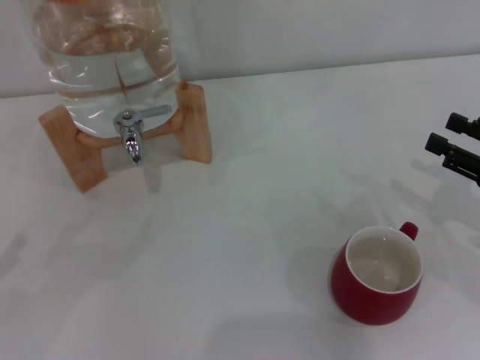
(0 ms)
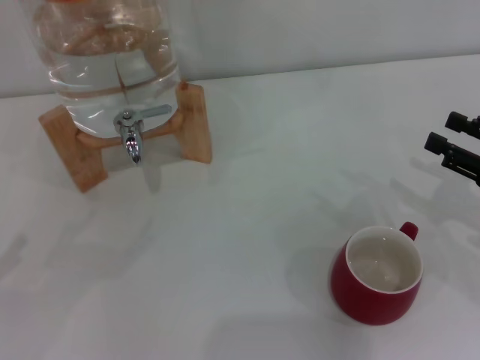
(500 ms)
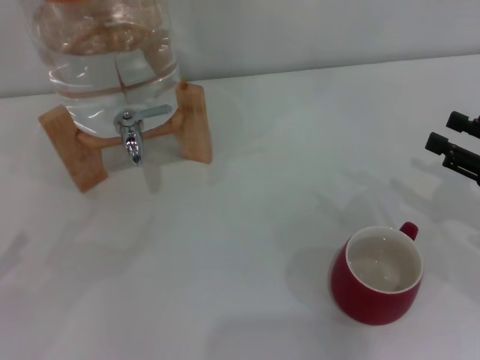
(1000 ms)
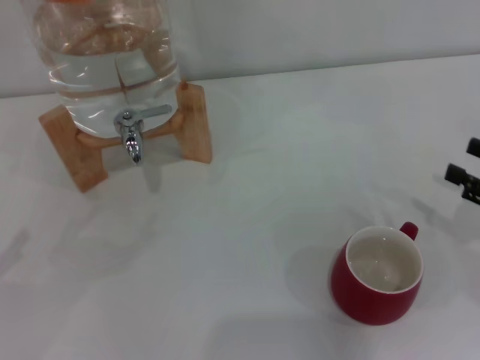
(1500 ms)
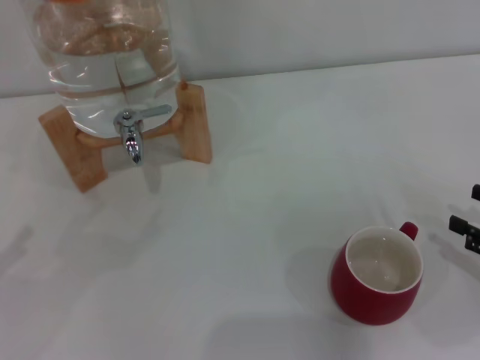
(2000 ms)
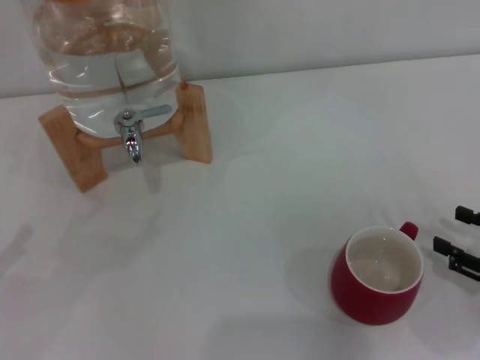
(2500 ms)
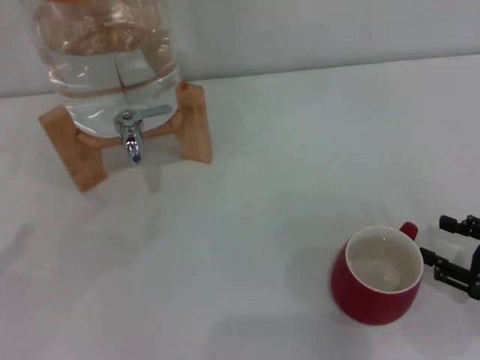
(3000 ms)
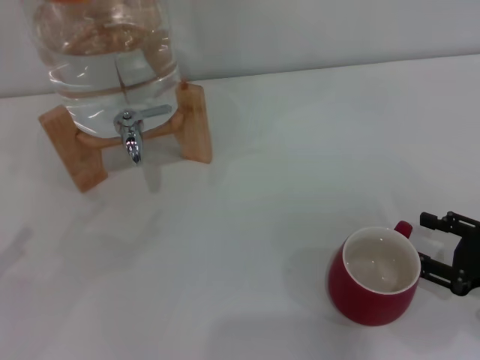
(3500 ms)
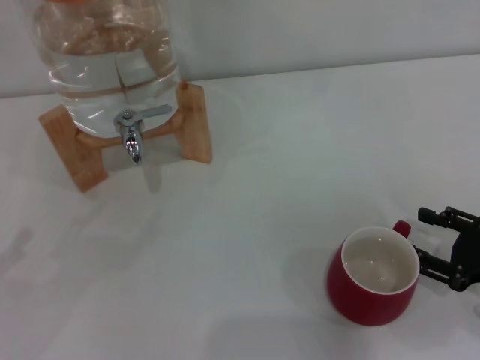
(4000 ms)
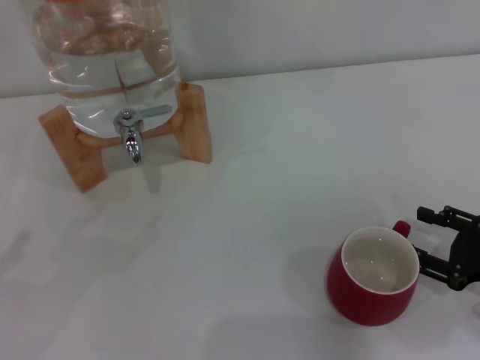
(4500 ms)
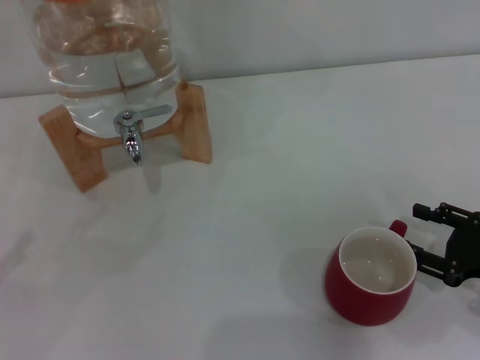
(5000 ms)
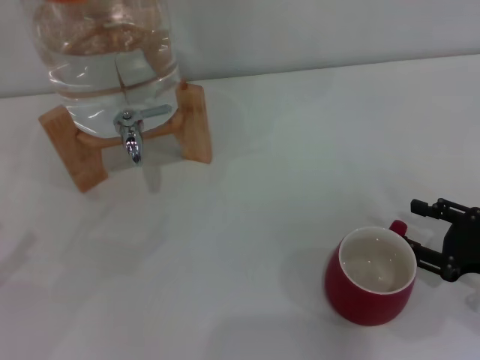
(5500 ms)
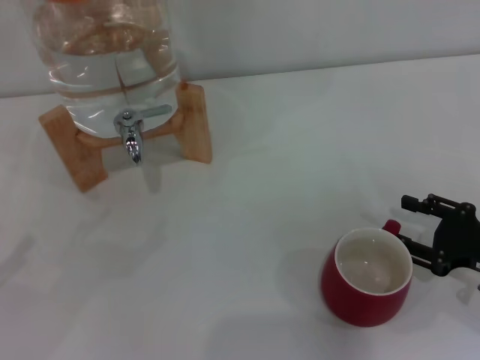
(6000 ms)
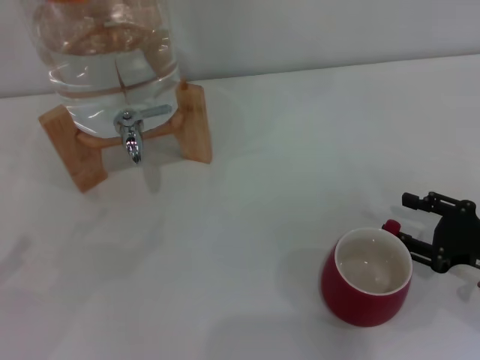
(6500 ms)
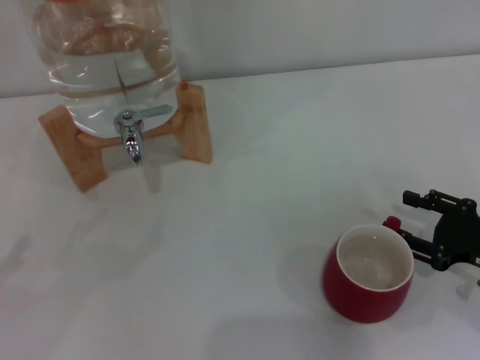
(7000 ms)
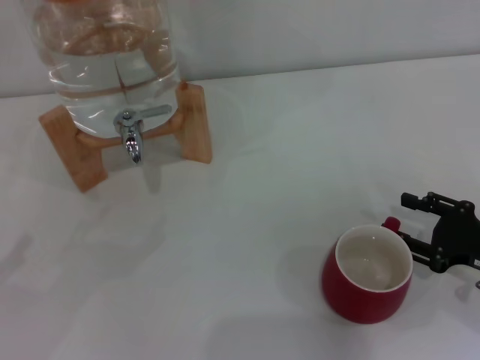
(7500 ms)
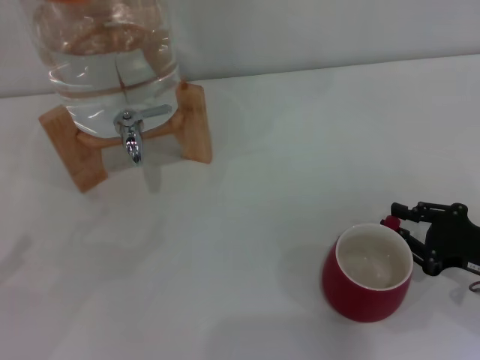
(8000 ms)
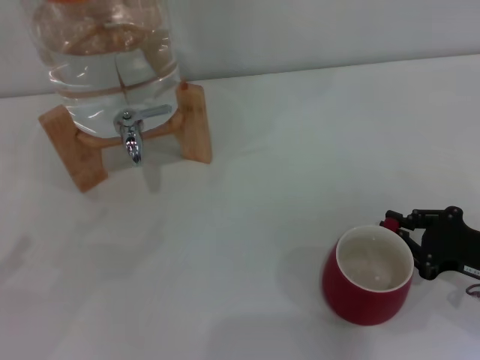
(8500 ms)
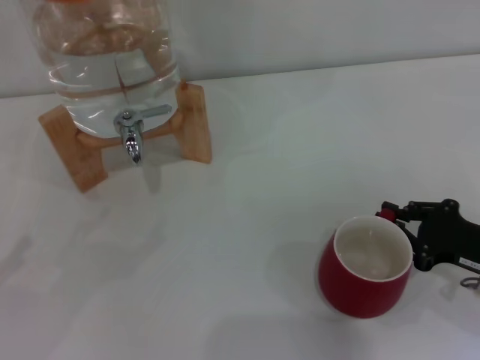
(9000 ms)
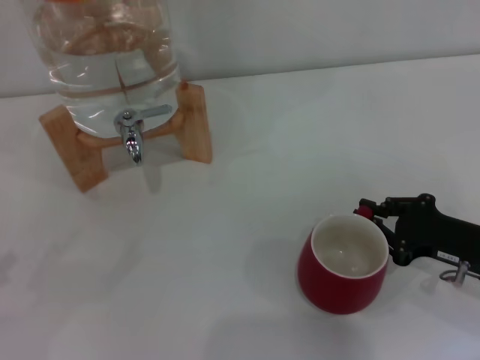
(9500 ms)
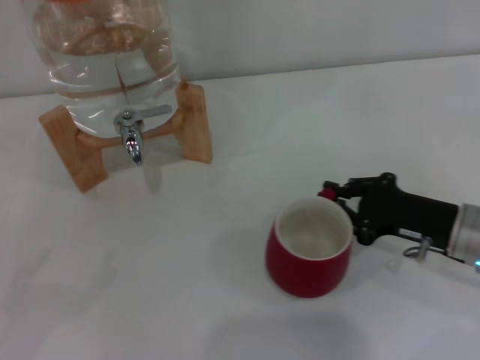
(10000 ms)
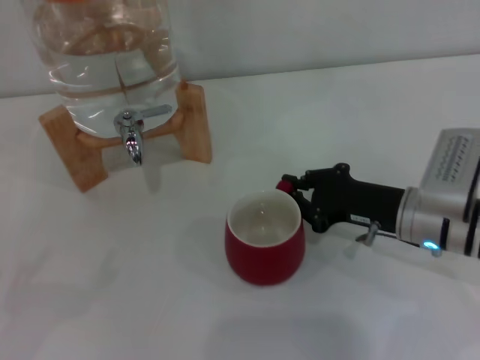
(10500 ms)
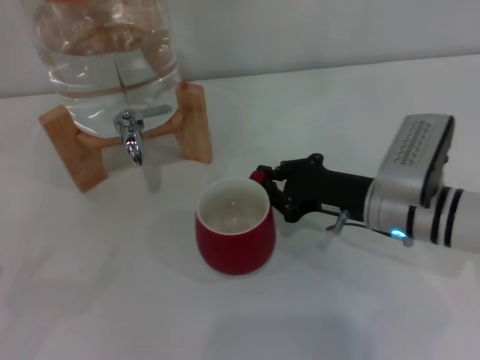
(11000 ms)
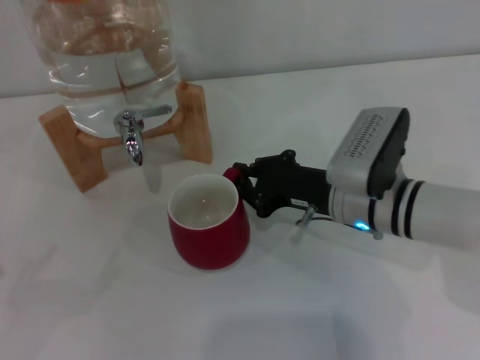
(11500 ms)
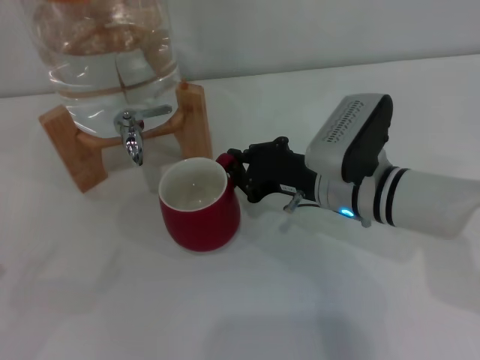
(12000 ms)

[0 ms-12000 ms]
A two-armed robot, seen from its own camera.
Task of the whole recording: the right gripper pick up the red cup and place it horizontally under the faucet, the left gripper turn on the faucet to fill the cup, and then turn off the faucet.
0 ms to 2000 ms: The right gripper travels backward by some 5 cm.
2000 ms to 4000 ms: There are only small adjustments of the grippers.
4000 ms to 6000 ms: The grippers make only small movements.
6000 ms to 8000 ms: The two grippers keep their place.
8000 ms to 10000 ms: The right gripper is displaced to the left and forward by roughly 5 cm, and closes its fingers.
10000 ms to 12000 ms: The right gripper is displaced to the left and forward by about 15 cm.

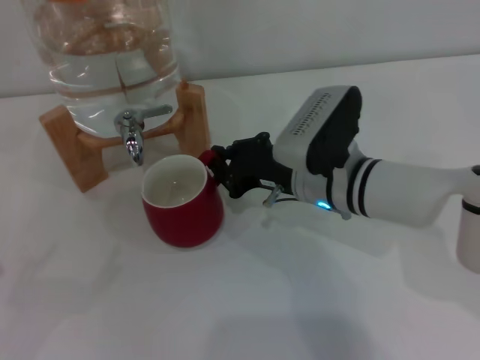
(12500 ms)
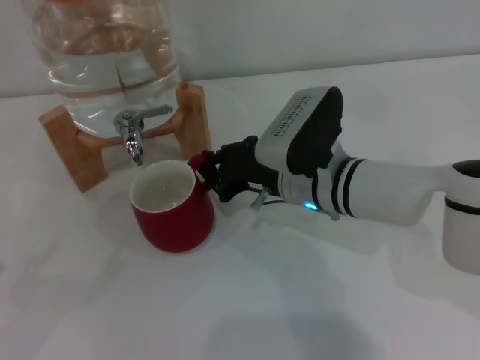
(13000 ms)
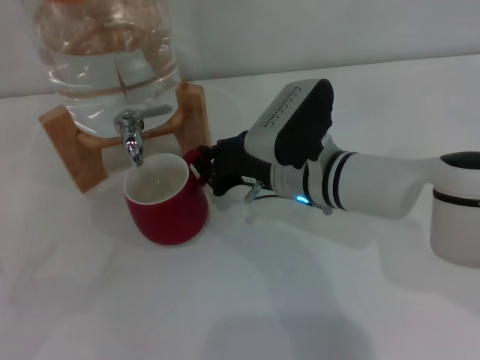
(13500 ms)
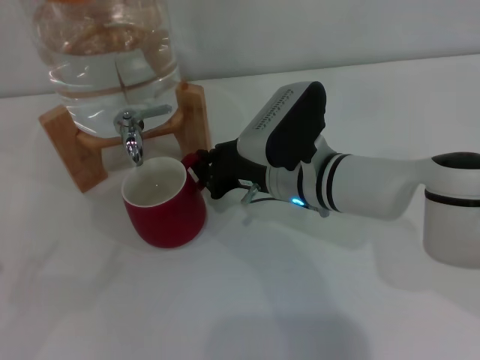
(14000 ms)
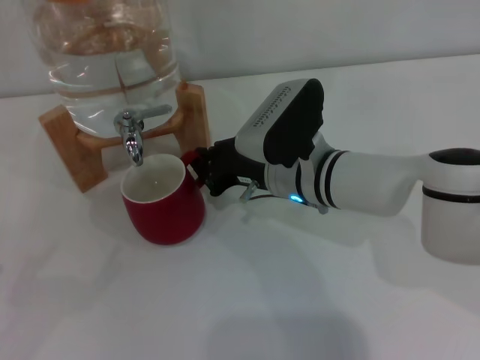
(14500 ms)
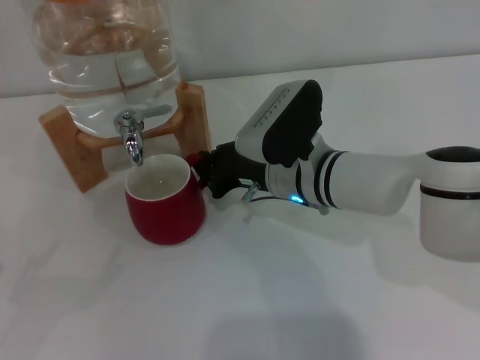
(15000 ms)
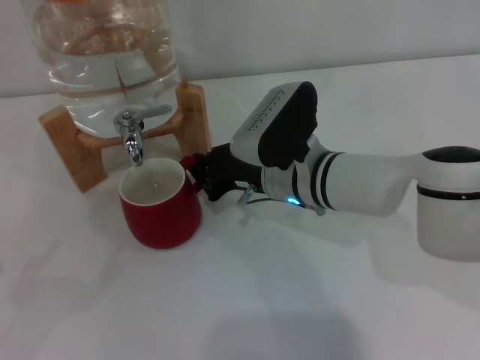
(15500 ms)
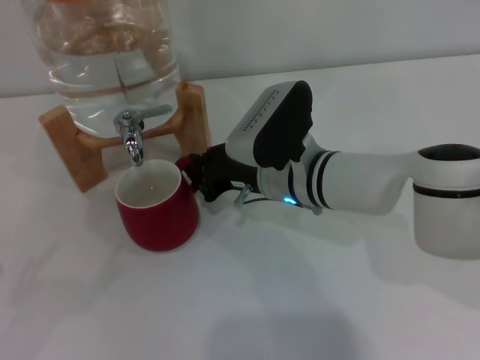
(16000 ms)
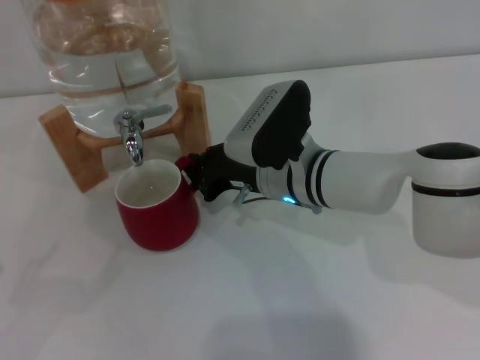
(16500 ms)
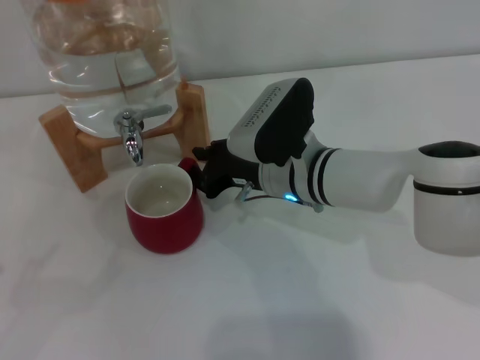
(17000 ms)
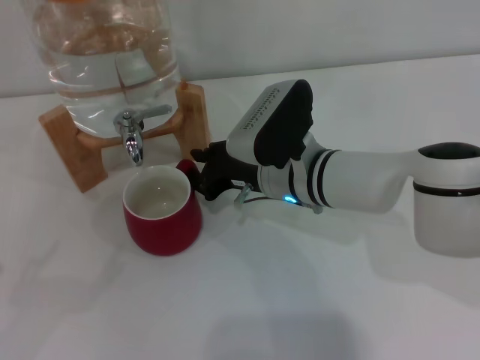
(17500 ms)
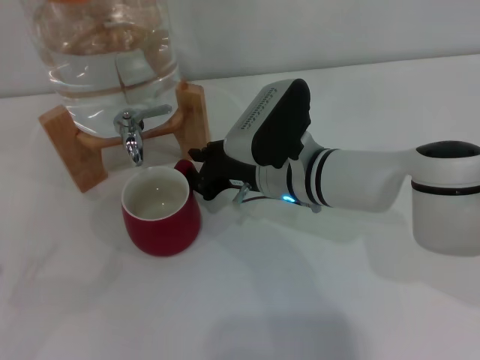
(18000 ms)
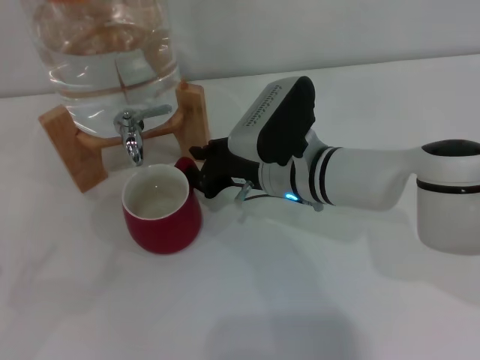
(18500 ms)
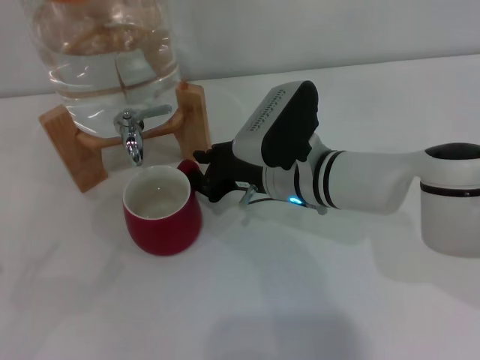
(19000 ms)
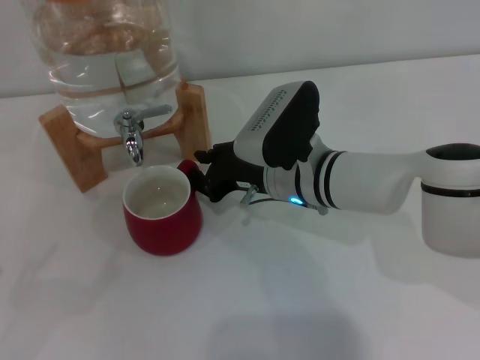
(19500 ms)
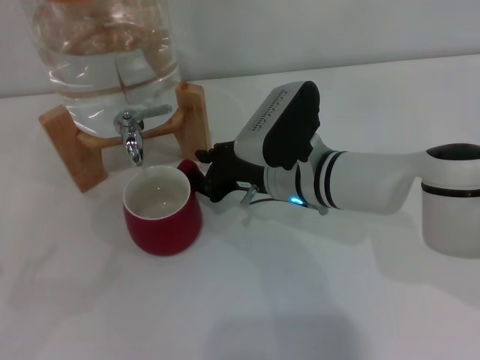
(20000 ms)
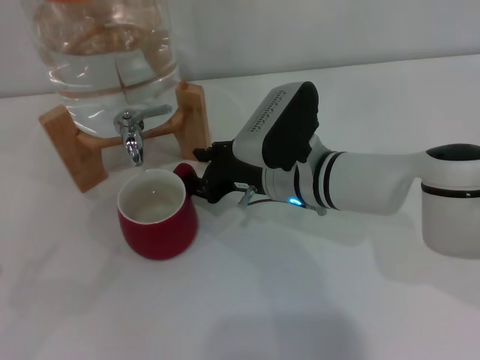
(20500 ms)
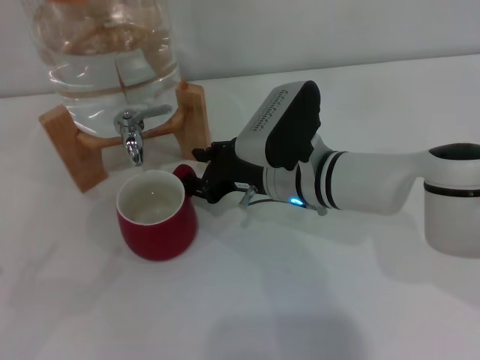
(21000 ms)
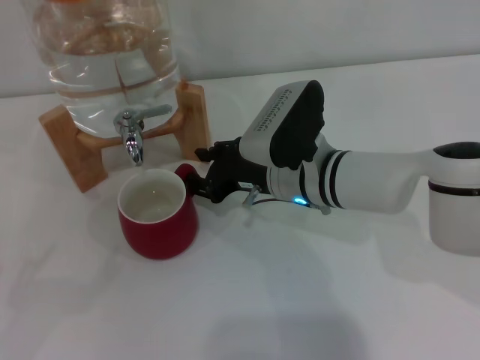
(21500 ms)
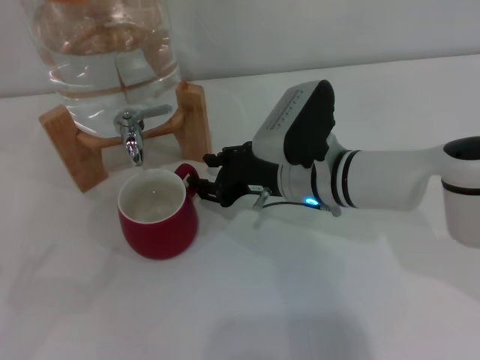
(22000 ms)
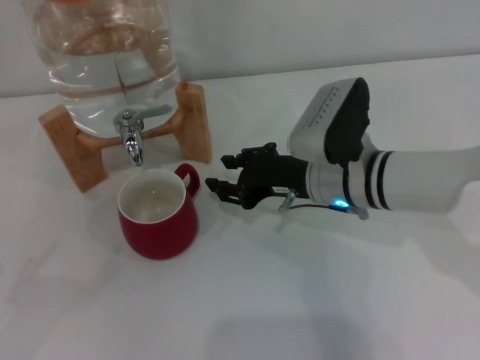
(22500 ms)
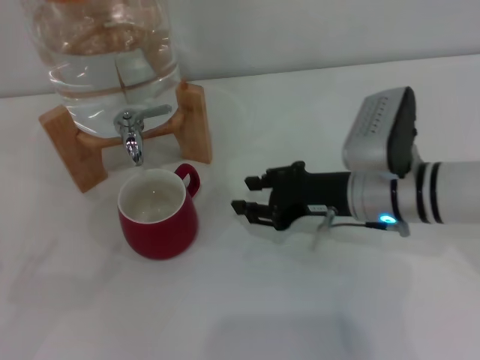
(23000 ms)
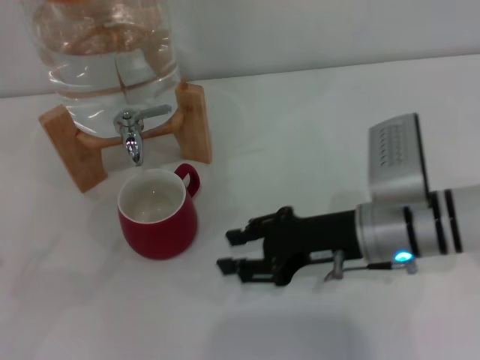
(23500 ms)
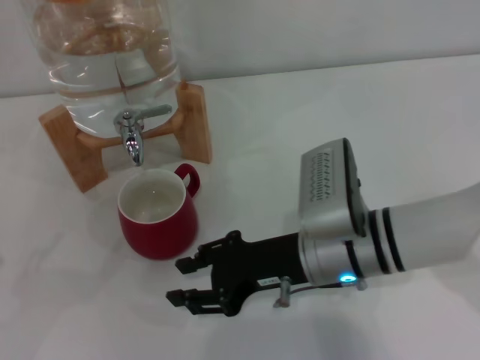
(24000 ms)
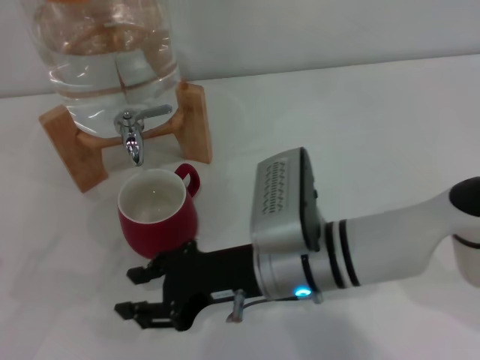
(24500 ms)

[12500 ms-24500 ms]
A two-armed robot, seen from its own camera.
Task of the whole recording: the right gripper pick up the red cup and place it horizontally under the faucet, the left gripper turn on the faucet to fill the cup, and then turn off the faucet.
Step, 12500 ms to 22000 ms: Move the cup beneath the water dispenser nozzle with the right gripper.
12500 ms to 14500 ms: The grippers stay close to where they were, moving slightly.
14500 ms to 20500 ms: Neither gripper changes place.
20500 ms to 22500 ms: There are only small adjustments of the grippers.
22500 ms to 24500 ms: The right gripper moves backward and to the left, some 10 cm.

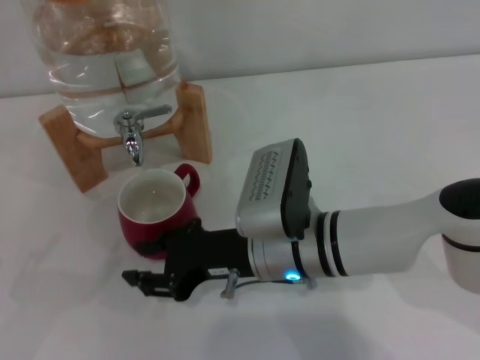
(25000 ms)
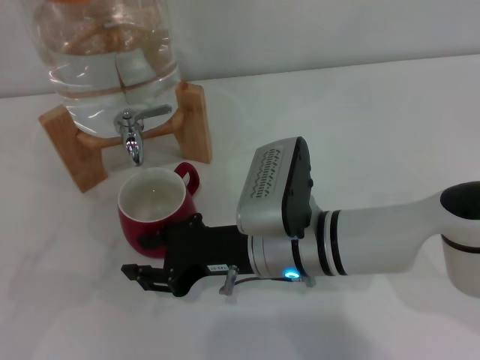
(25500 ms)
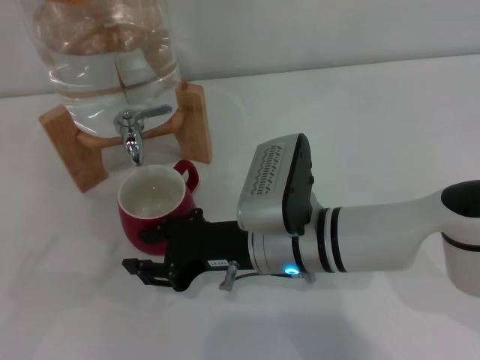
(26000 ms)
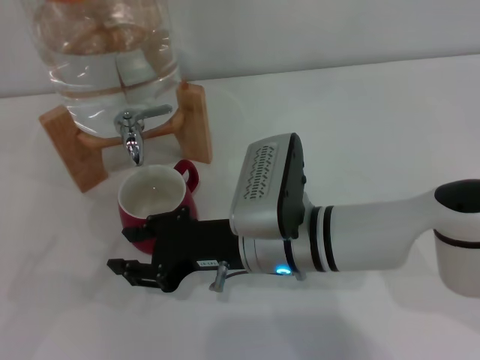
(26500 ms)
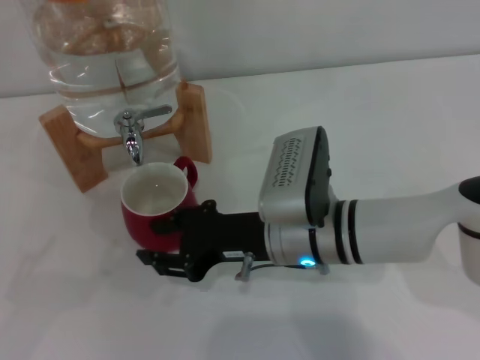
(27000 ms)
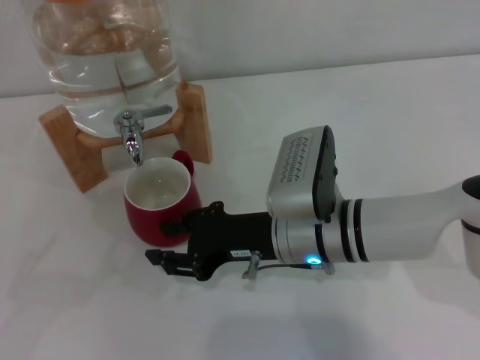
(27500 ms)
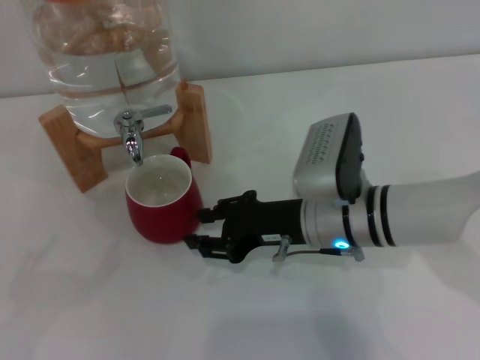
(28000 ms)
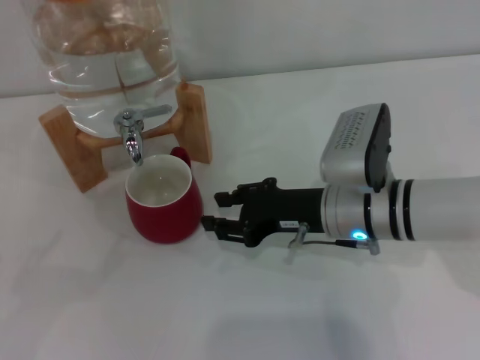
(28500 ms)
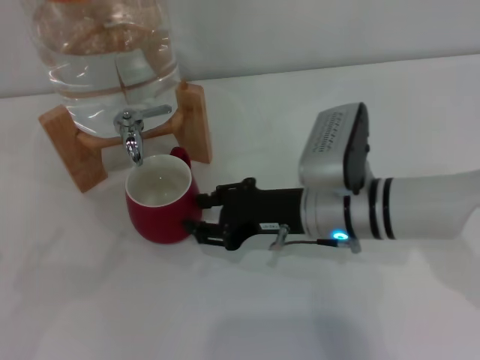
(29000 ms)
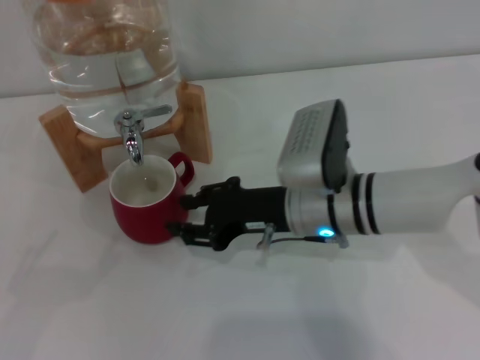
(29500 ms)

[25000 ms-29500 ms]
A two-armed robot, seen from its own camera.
Task of the whole recording: the right gripper pick up the red cup and place it horizontally under the faucet, the left gripper turn on the faucet to fill the cup, and then turn off the faucet.
25000 ms to 27000 ms: The grippers make only small movements.
